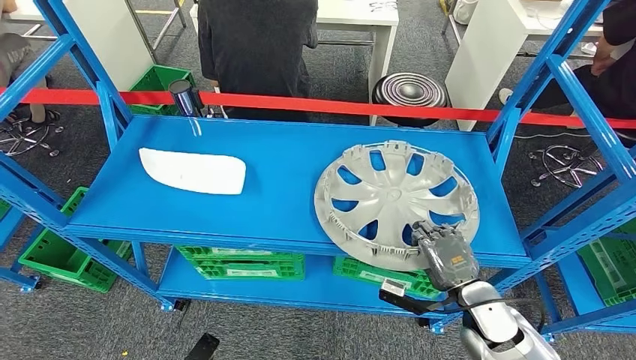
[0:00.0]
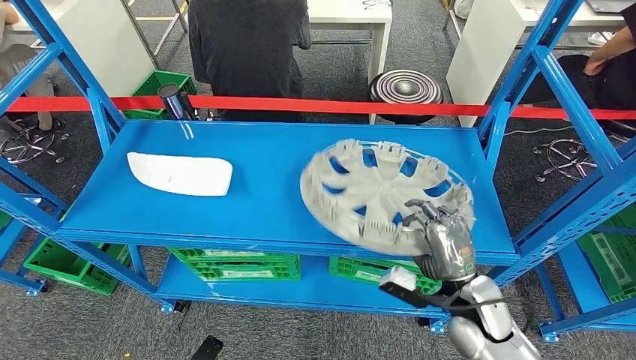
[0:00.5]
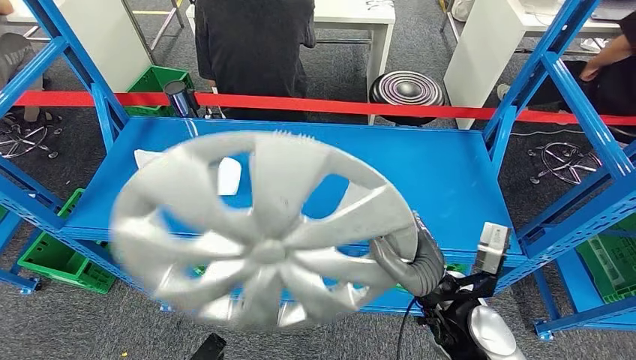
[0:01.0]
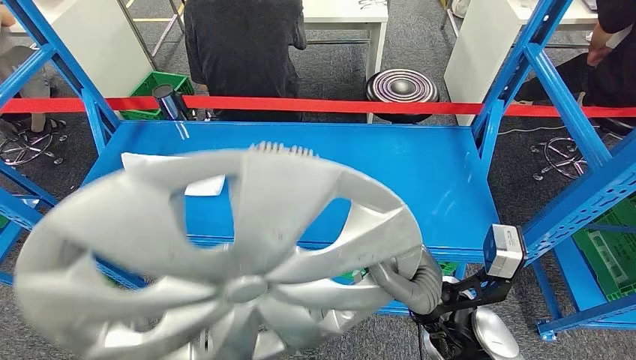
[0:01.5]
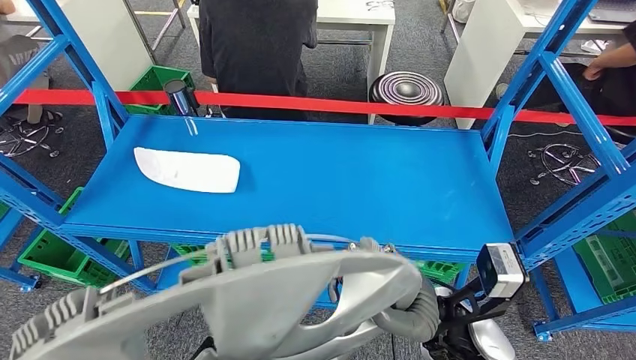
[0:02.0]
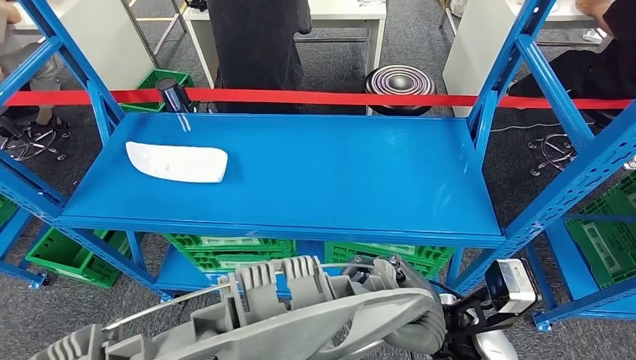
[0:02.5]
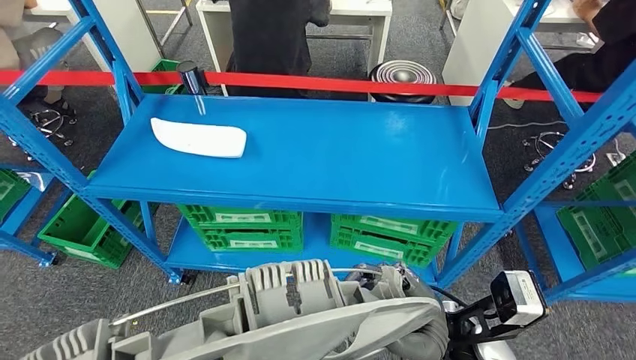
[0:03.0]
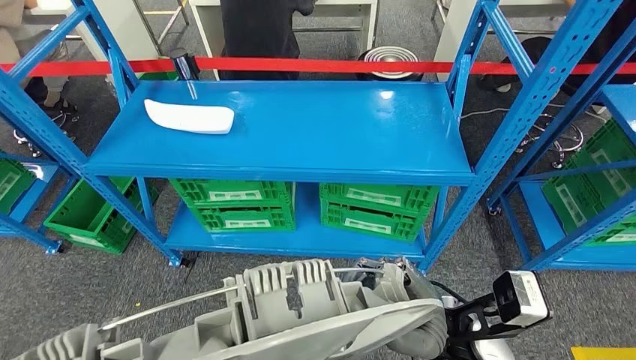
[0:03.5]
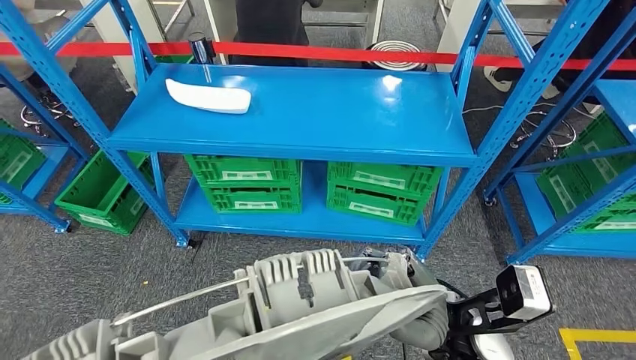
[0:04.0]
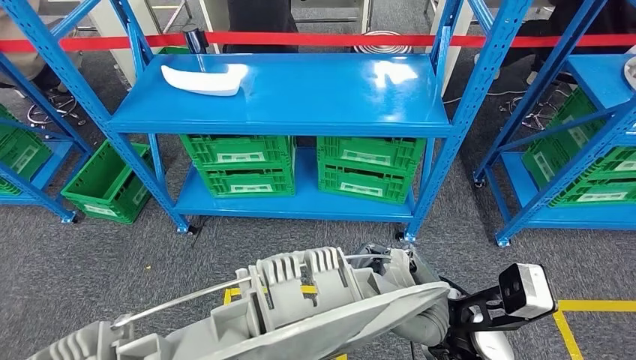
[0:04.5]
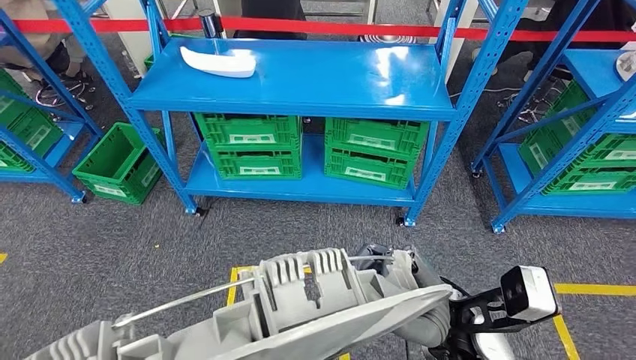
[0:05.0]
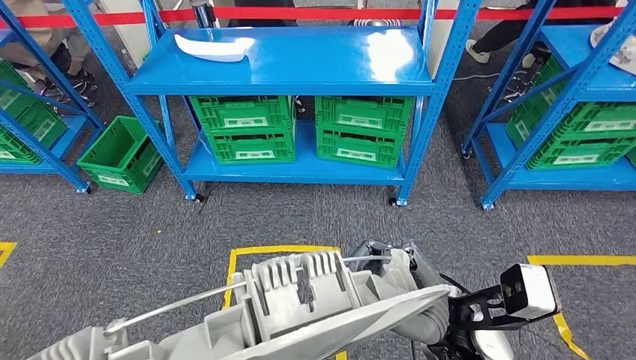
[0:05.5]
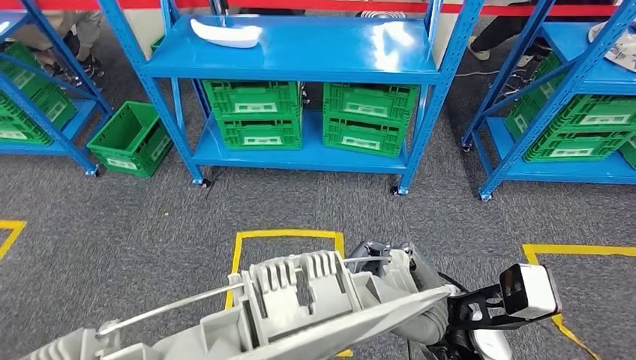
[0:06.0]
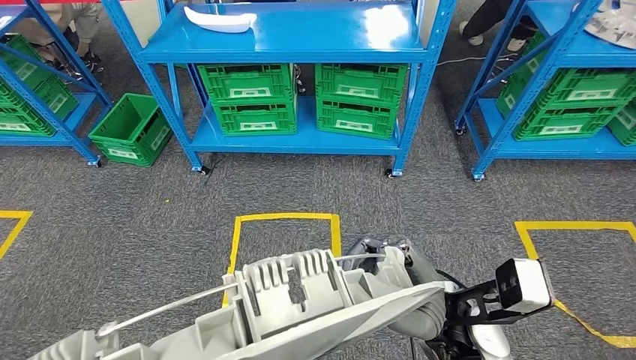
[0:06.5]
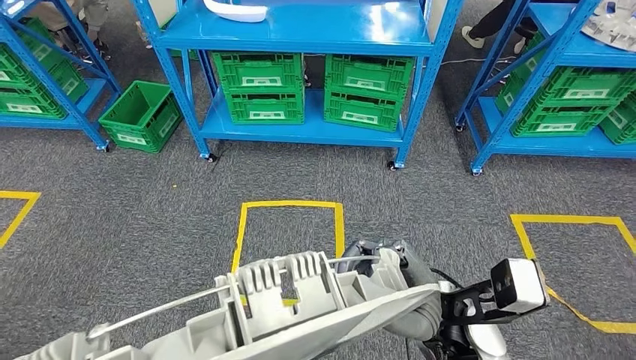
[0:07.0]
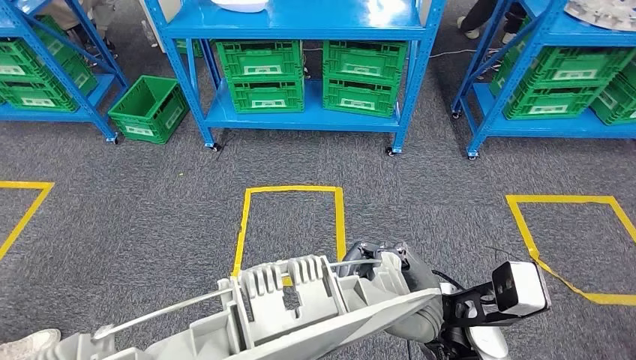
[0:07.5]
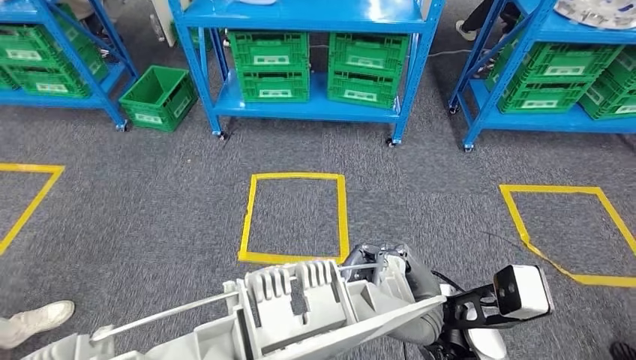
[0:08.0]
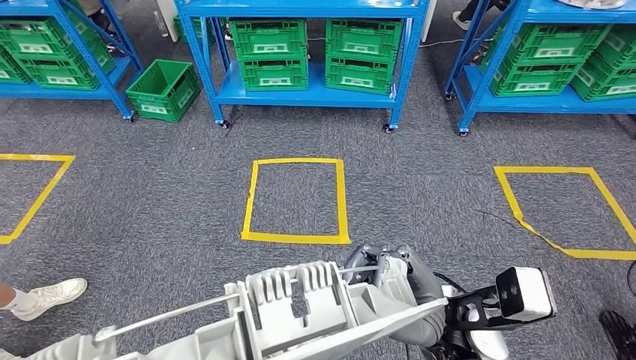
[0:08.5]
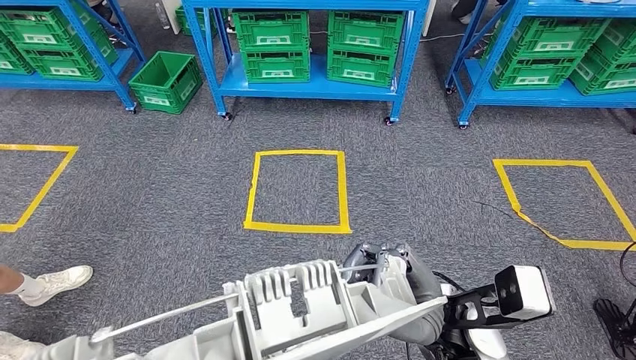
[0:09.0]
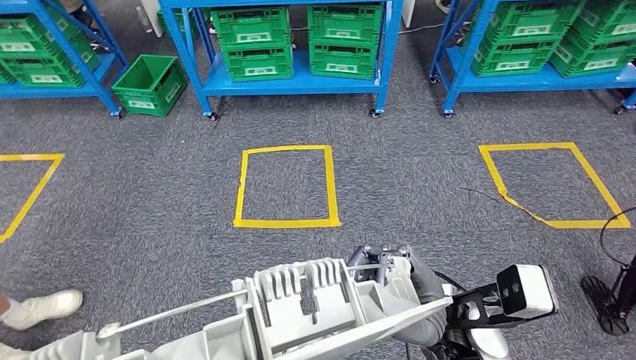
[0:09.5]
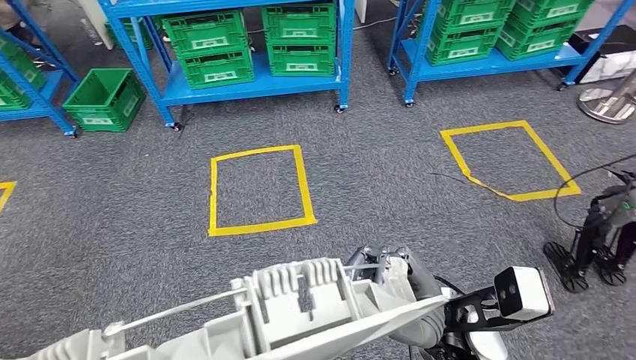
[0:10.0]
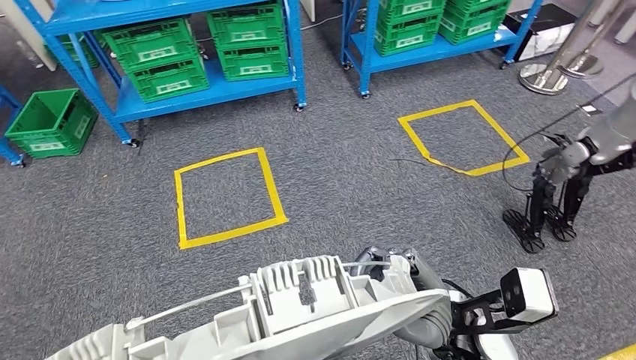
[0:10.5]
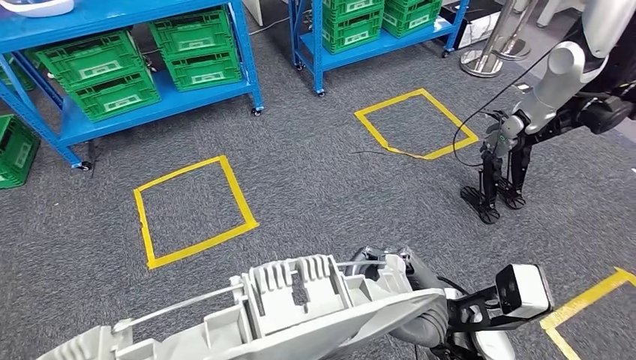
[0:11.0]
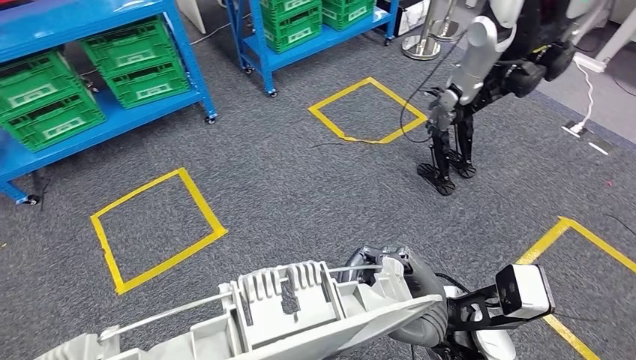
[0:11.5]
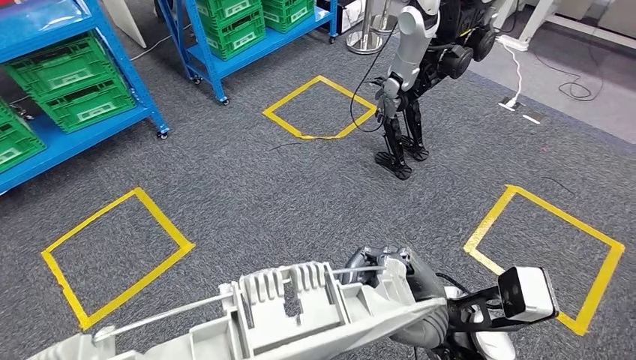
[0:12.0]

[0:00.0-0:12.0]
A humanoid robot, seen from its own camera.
Step, 0:00.0 to 0:02.5: Pick up the small parts from the shelf.

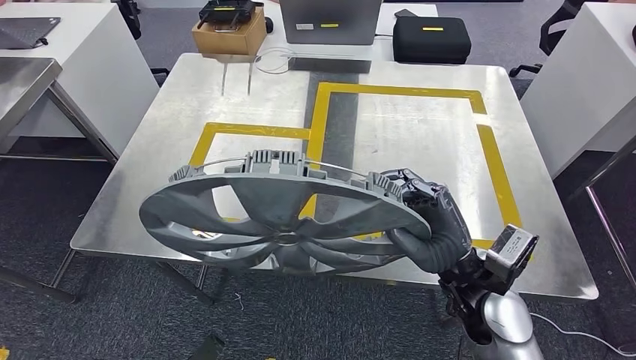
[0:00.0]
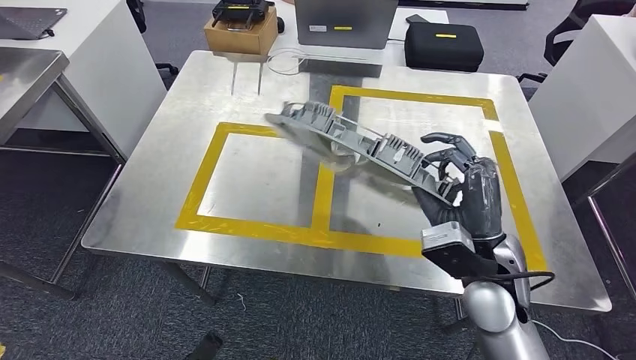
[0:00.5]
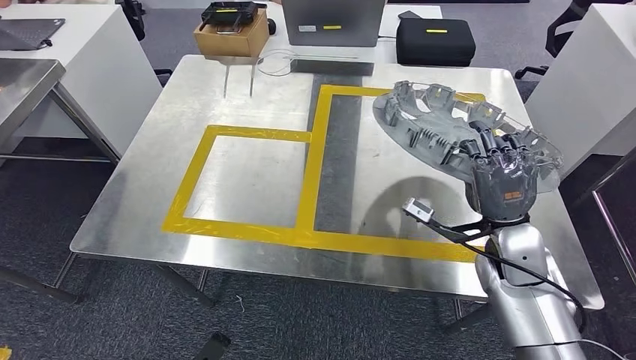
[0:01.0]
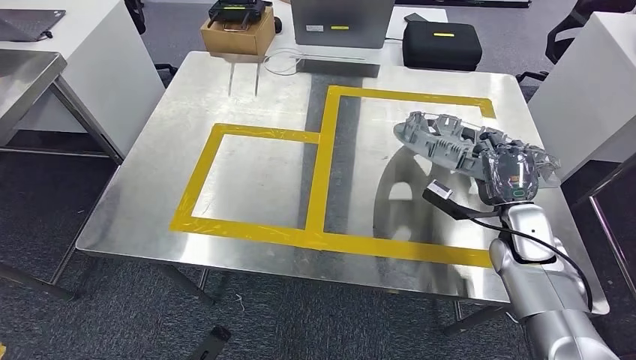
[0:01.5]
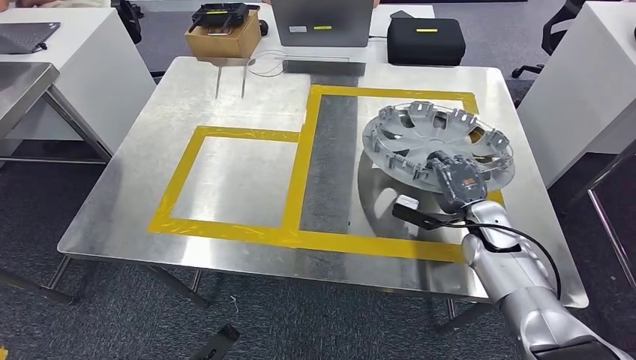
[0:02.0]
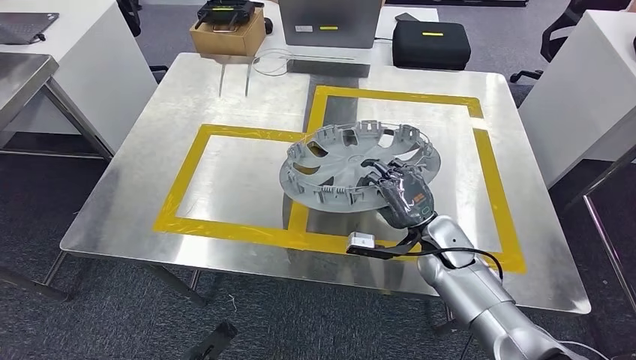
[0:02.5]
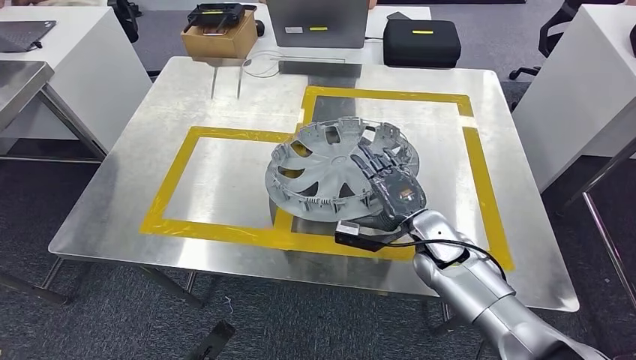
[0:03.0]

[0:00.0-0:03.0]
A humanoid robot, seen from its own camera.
Step, 0:00.0 to 0:03.0: Insert the small parts into the corresponding holes on the workbench.

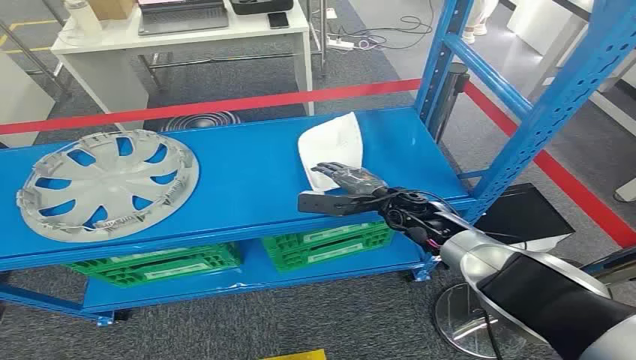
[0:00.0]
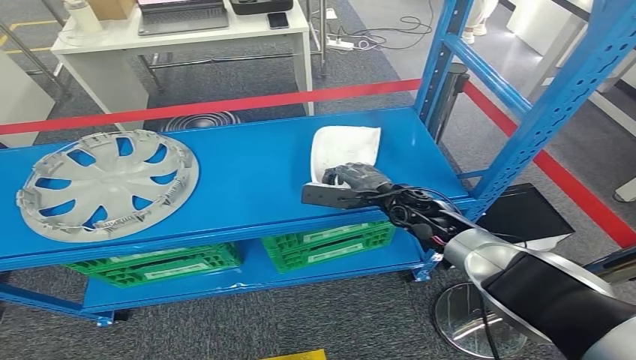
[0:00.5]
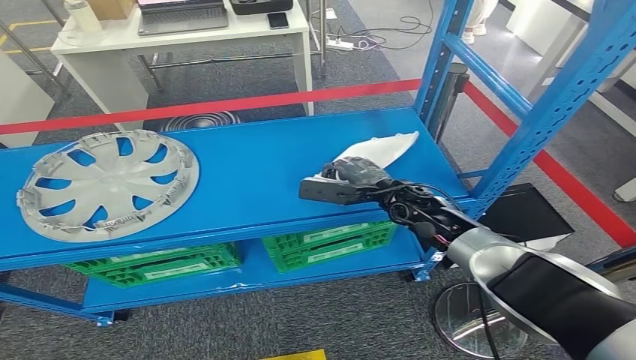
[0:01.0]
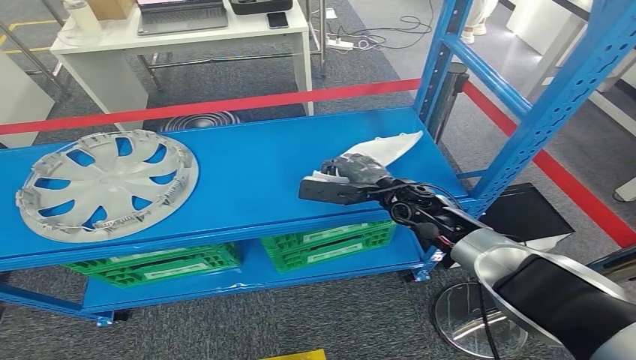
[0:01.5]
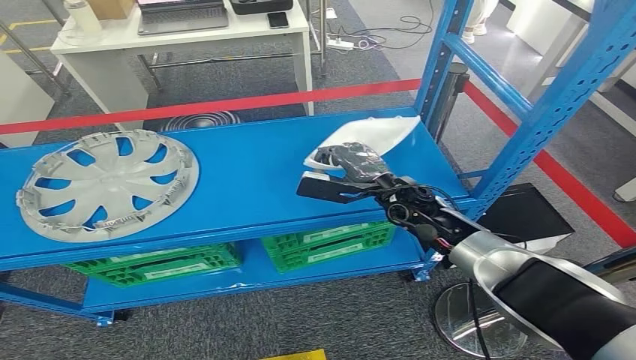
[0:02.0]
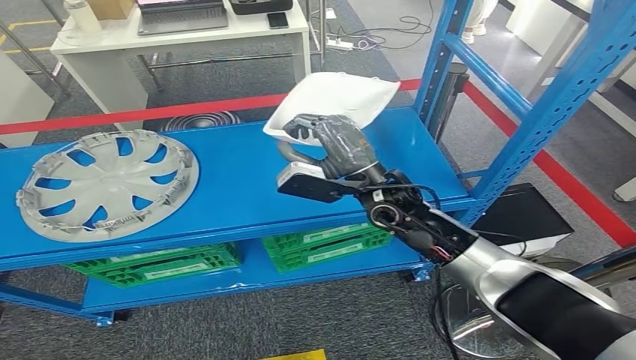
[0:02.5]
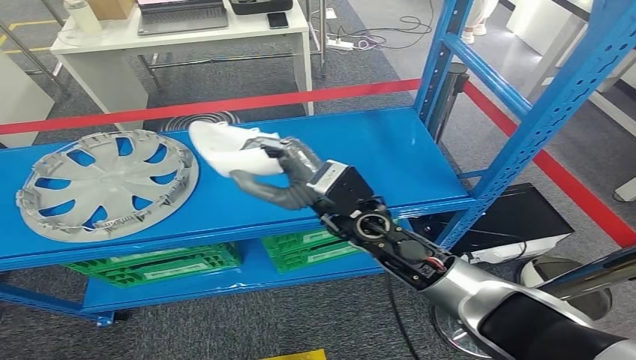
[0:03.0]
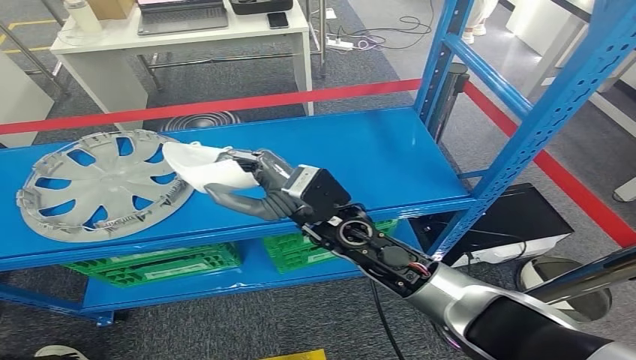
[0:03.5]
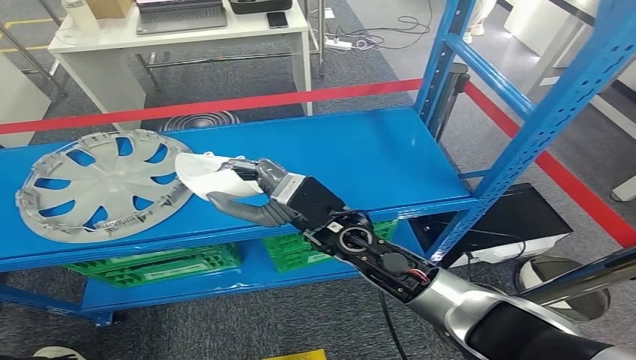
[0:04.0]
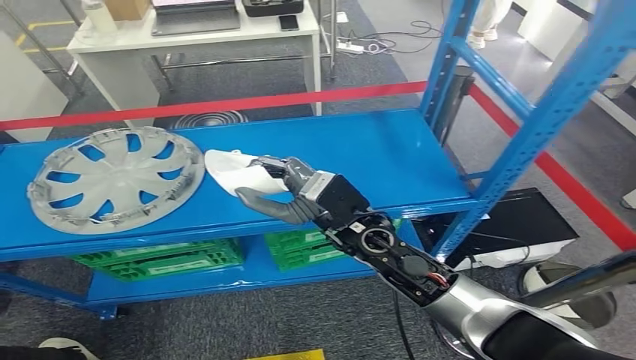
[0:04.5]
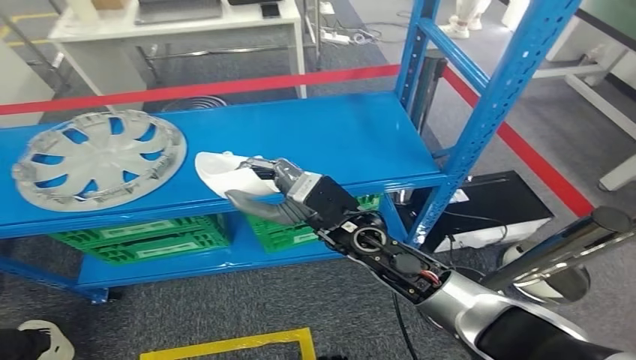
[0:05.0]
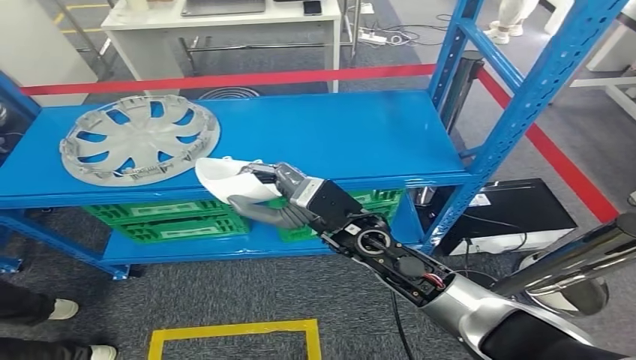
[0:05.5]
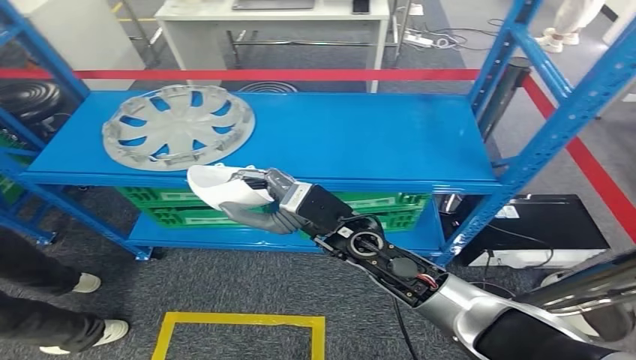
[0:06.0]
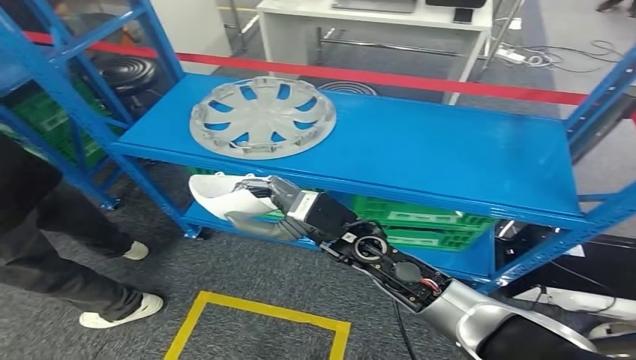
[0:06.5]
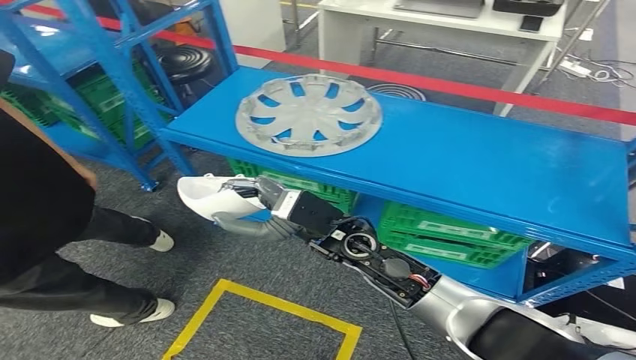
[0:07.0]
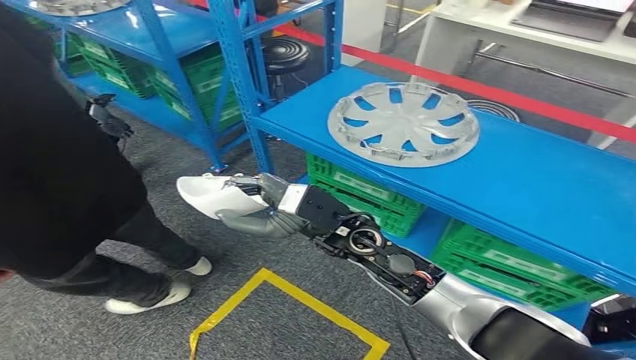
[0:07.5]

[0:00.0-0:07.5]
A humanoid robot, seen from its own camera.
Step, 0:00.0 to 0:05.0: Pick up the small parts from the shelf.
